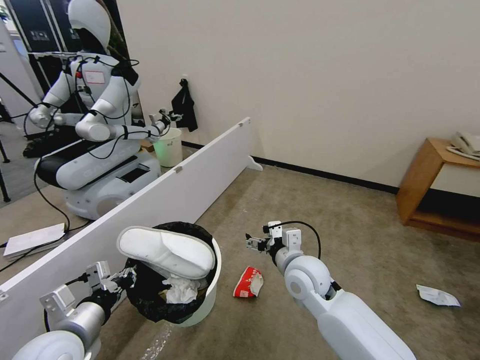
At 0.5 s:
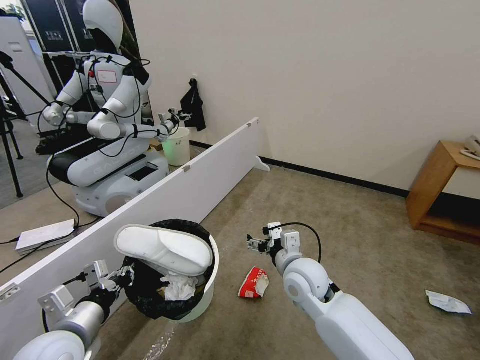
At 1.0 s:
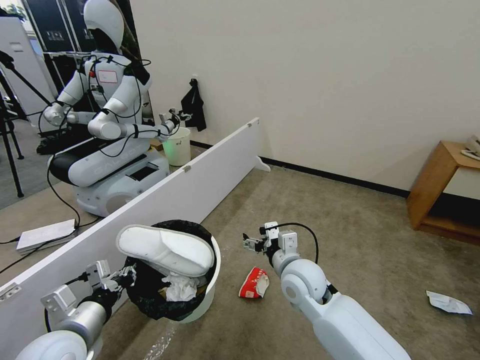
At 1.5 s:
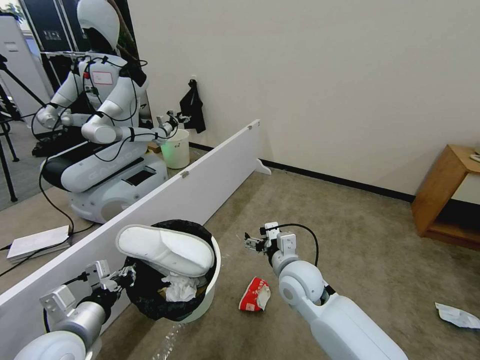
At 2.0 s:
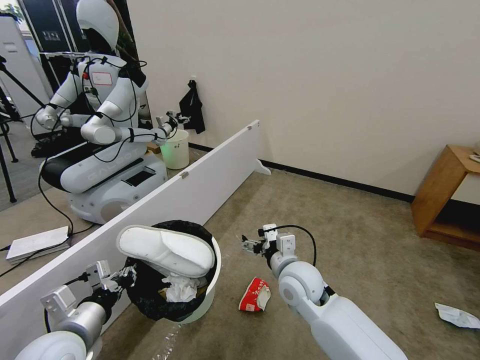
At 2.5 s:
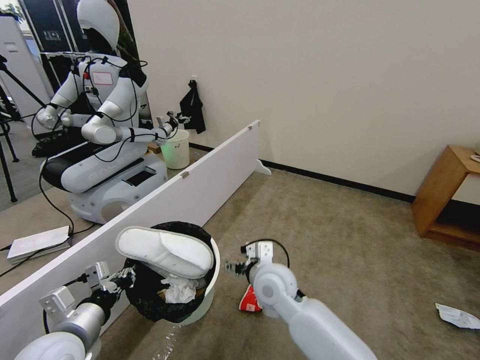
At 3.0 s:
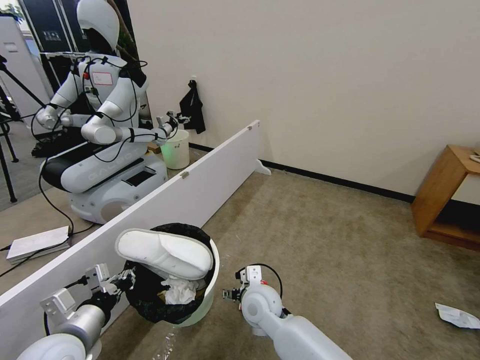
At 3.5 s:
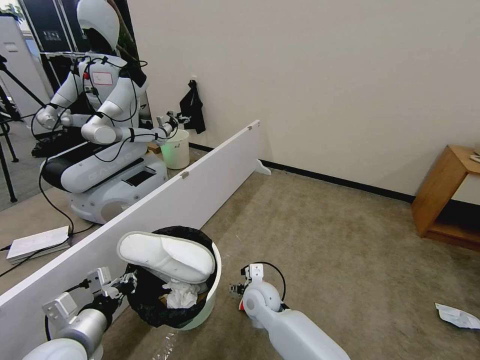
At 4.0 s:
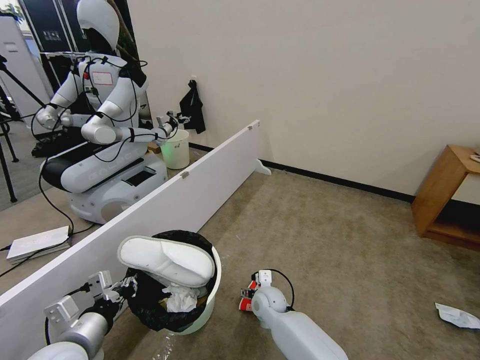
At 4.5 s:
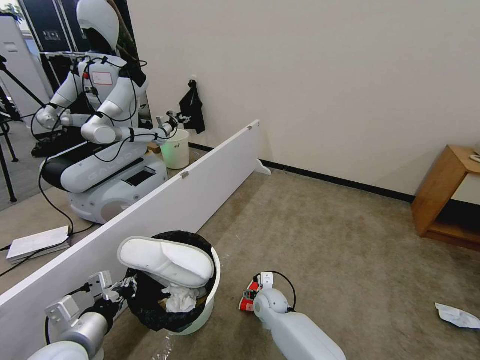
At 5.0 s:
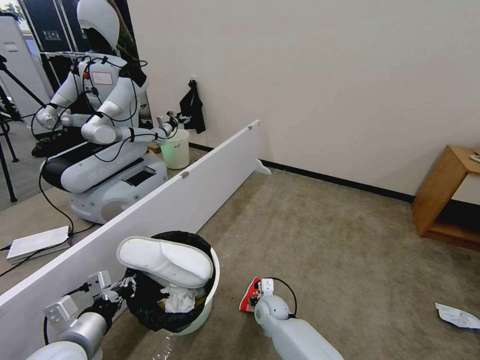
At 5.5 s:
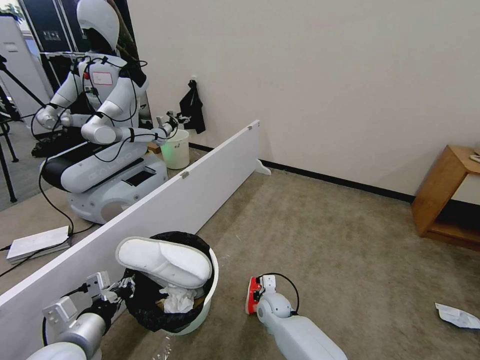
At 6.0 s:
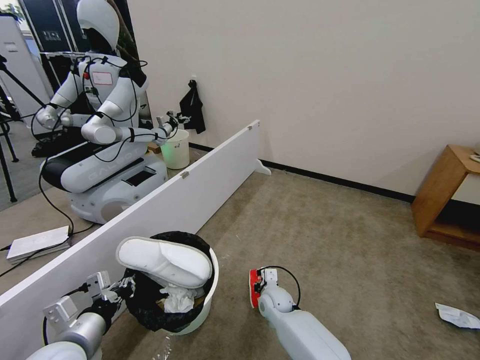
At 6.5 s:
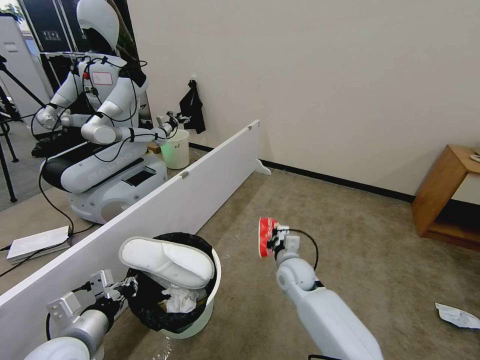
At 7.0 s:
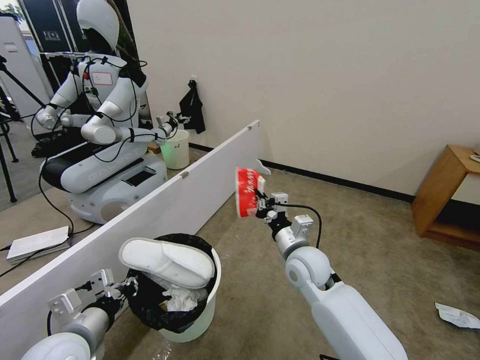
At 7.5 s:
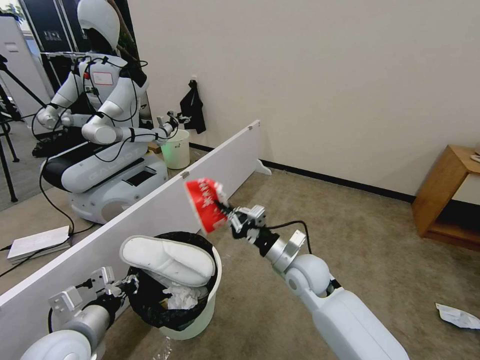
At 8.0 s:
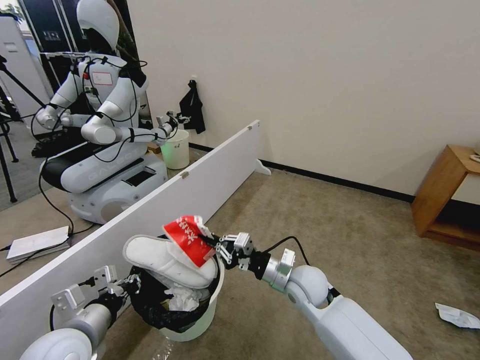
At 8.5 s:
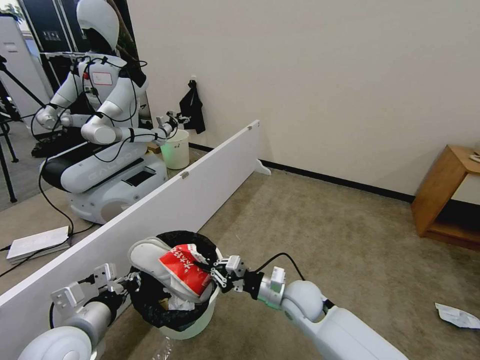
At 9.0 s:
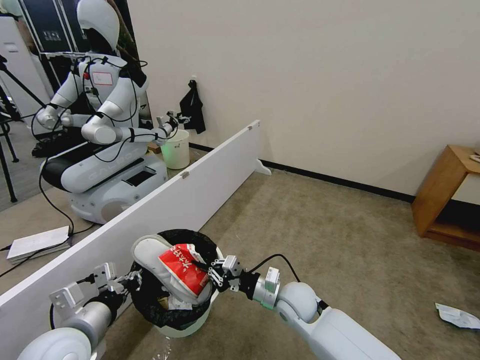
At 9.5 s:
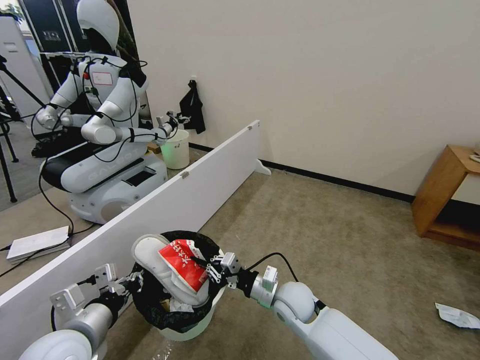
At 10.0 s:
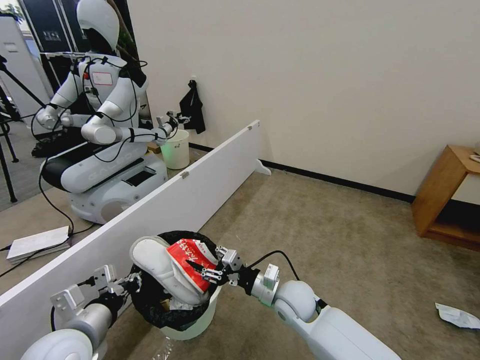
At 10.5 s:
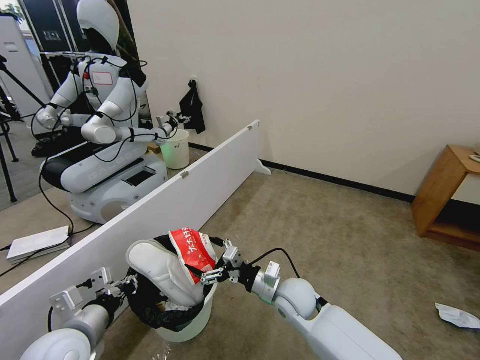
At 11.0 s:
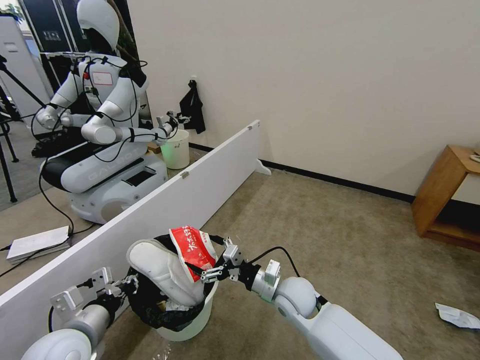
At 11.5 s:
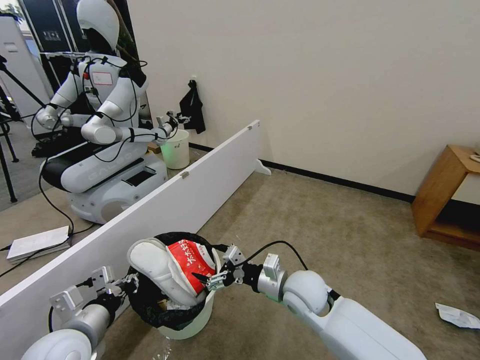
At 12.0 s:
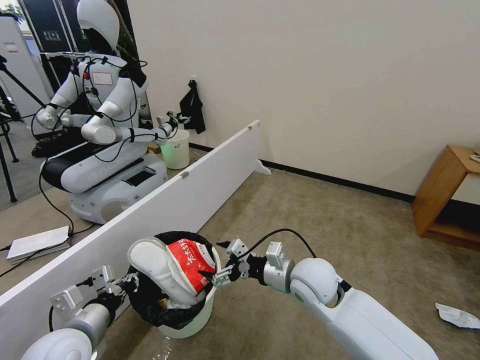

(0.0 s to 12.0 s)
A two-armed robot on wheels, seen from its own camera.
Task of the whole recording: Pick up the trash bin, then pick up the garbage from the floor and place it into the trash bin.
2.0 s - 4.0 s: The right gripper shifts approximately 20 cm downward.
4.0 s - 6.0 s: The right gripper closes its fingers.
6.0 s - 8.0 s: The right gripper moves upward, some 15 cm.
8.0 s - 10.0 s: The right gripper shifts by roughly 5 cm, and opens its fingers.
10.0 s - 12.0 s: The right gripper shifts about 10 cm upward, and opens.

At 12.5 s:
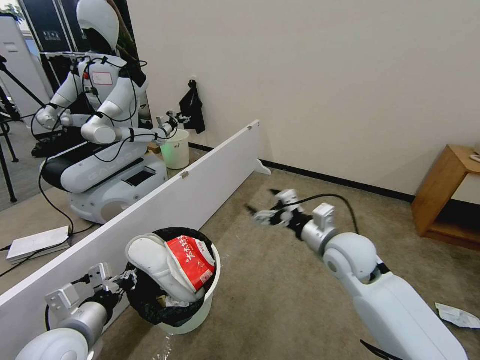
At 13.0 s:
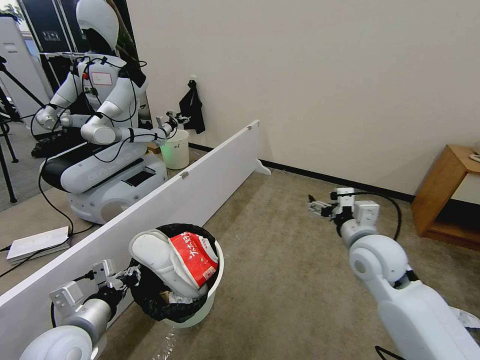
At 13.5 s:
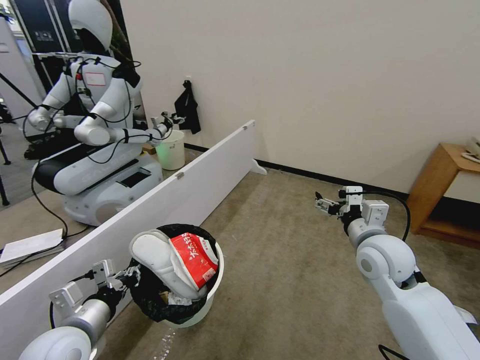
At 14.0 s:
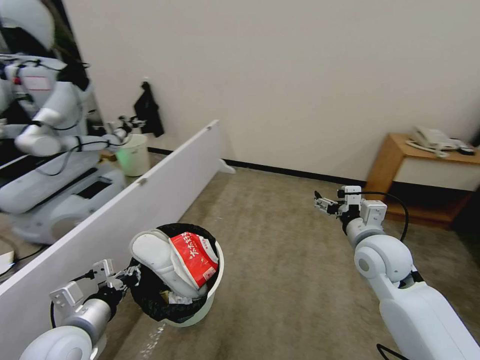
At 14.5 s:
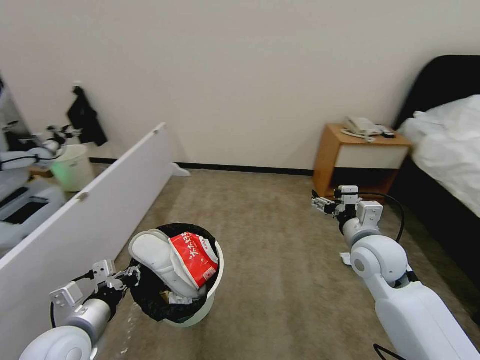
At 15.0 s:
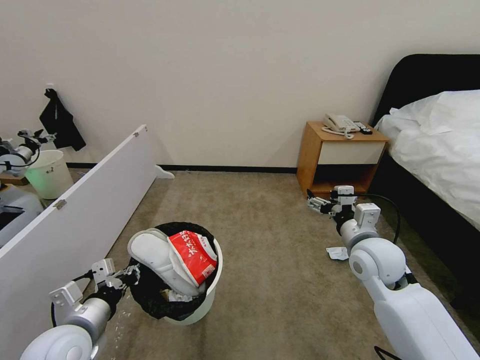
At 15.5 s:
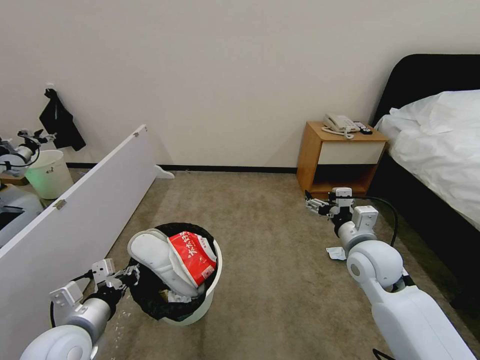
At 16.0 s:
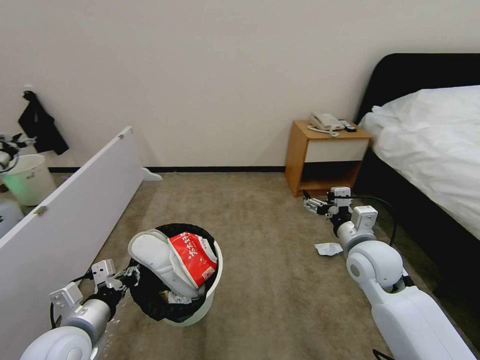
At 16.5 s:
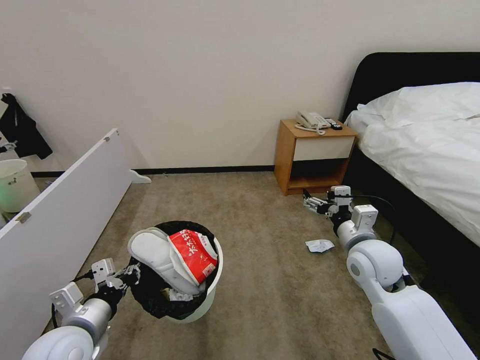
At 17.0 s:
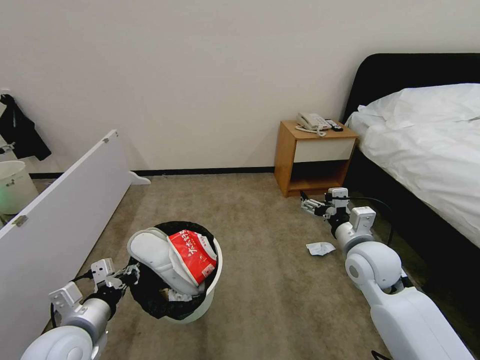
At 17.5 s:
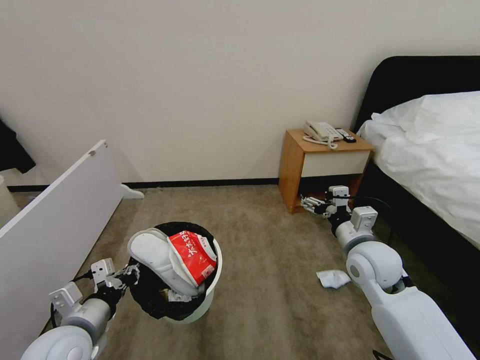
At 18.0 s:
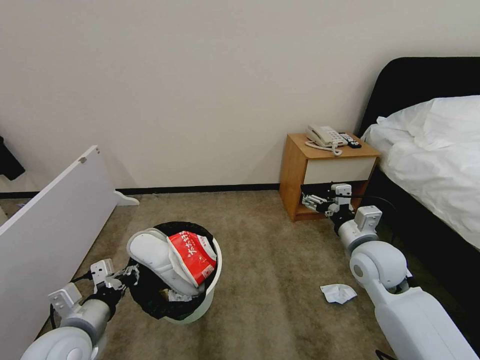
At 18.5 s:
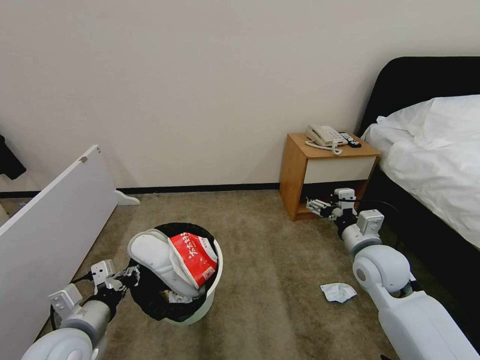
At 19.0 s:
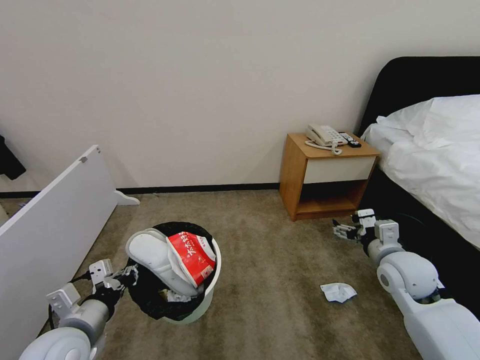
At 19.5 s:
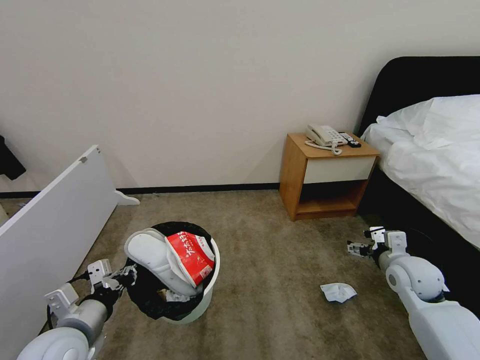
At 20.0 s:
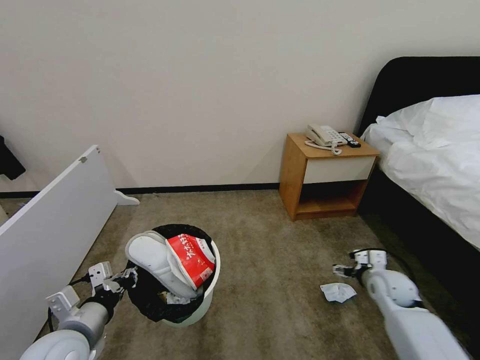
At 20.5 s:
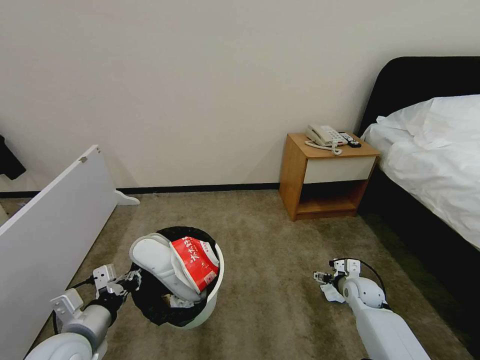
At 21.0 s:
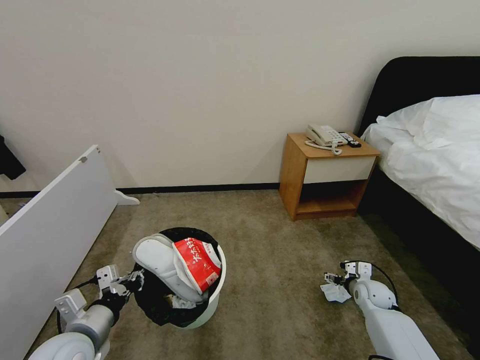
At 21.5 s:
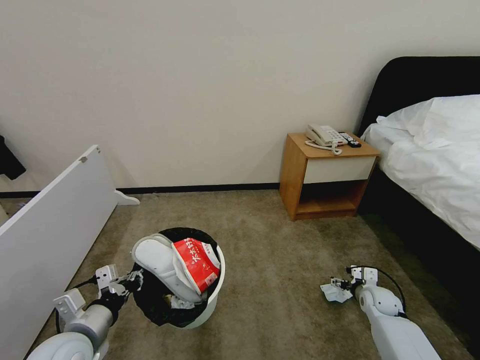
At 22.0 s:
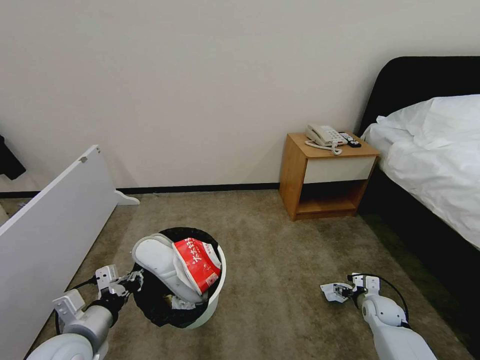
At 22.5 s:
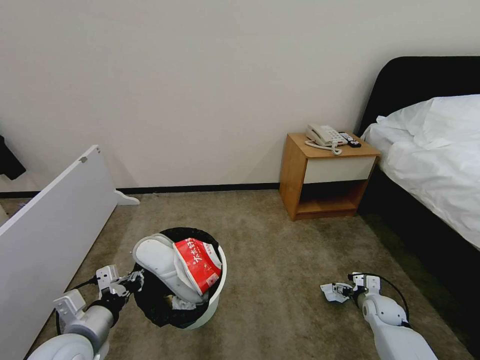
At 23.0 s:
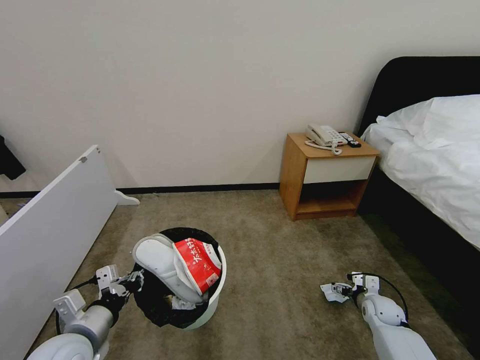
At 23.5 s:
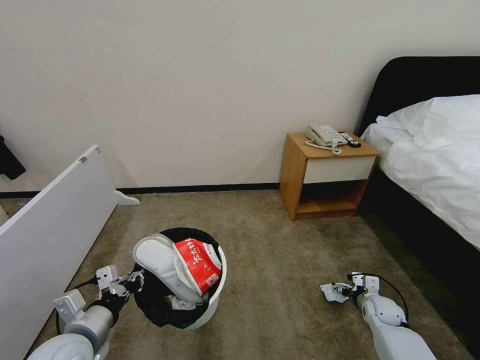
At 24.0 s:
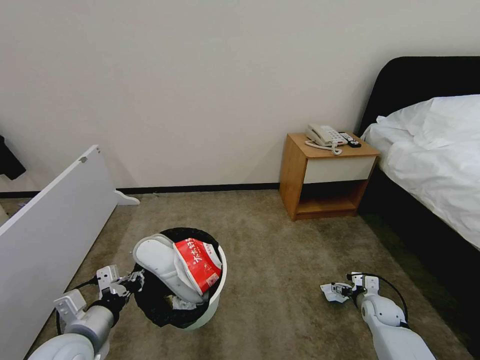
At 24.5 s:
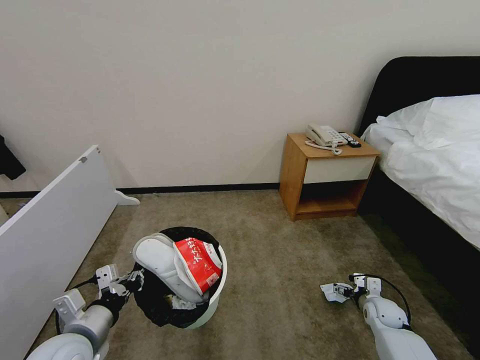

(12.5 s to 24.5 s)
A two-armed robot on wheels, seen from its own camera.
Task of the whole recording: Pick up the trash bin, then pick up the garbage from the floor and place it into the trash bin.
12.5 s - 14.5 s: The right gripper shifts some 5 cm to the right.
18.5 s - 20.5 s: The right gripper travels downward by approximately 20 cm.
20.5 s - 22.5 s: The right gripper is displaced to the right by approximately 5 cm.
22.5 s - 24.5 s: The two grippers keep their place.

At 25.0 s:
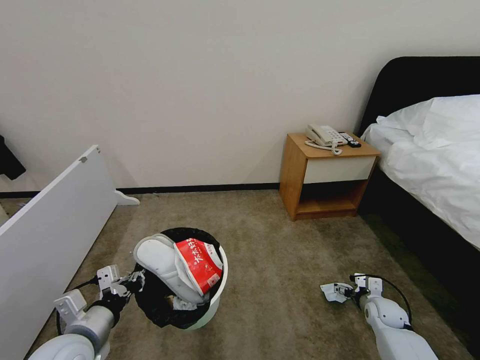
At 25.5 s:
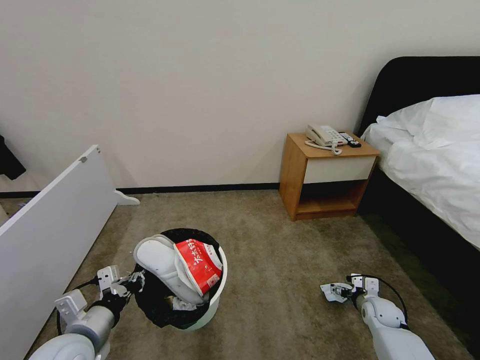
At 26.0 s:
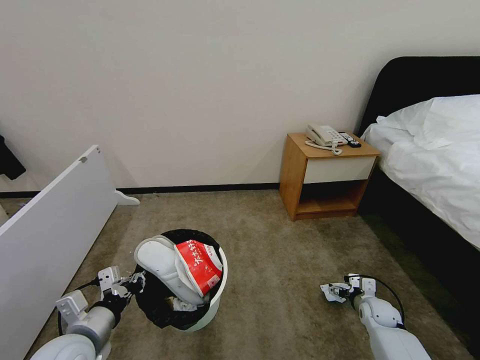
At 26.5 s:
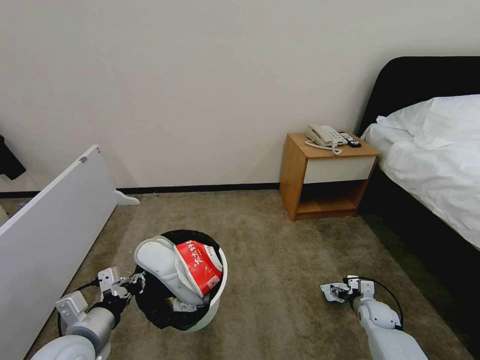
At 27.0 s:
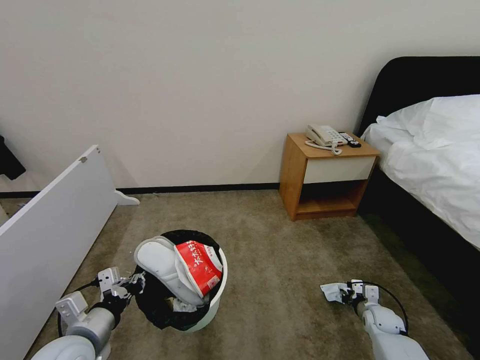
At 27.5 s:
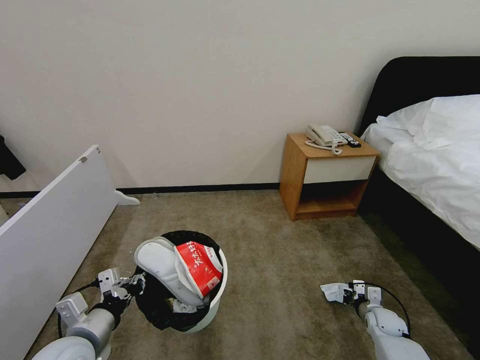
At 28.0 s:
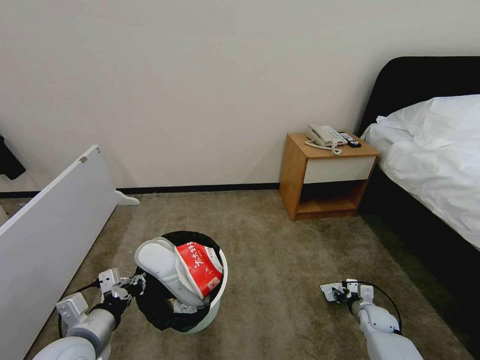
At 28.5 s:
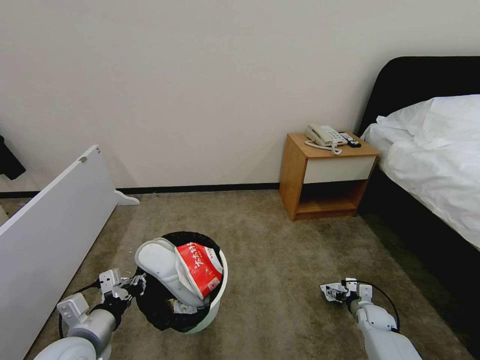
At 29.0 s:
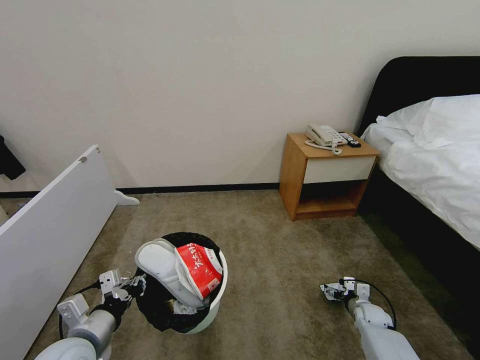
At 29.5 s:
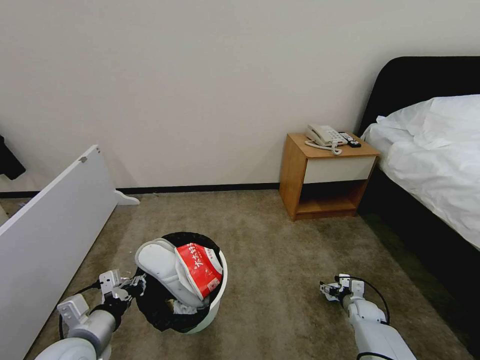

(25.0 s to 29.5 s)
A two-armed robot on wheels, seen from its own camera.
Task of the whole recording: Pick up the trash bin, then pick up the garbage from the floor and place it into the trash bin.
25.0 s - 27.0 s: The right gripper closes up.
27.0 s - 29.5 s: The right gripper opens its fingers.
